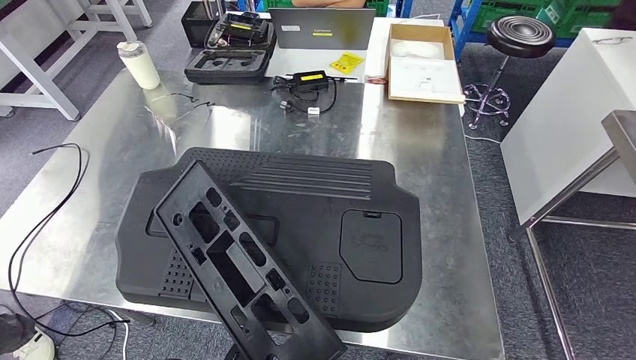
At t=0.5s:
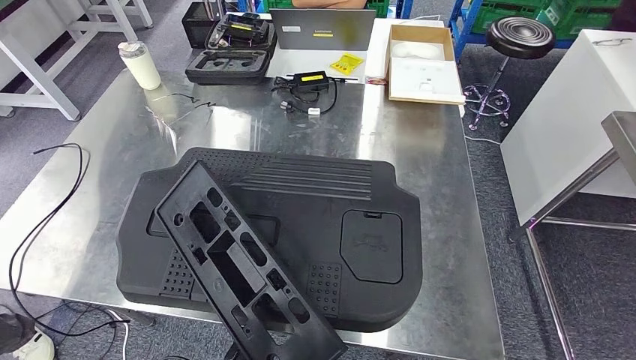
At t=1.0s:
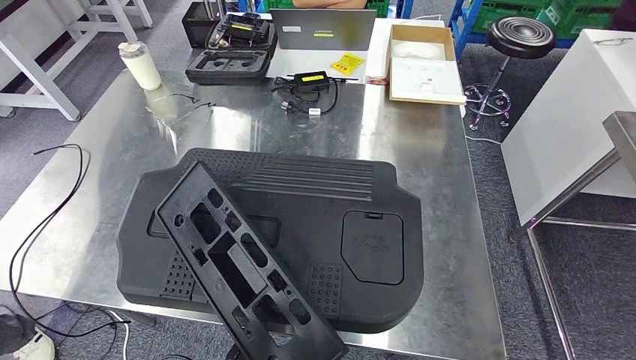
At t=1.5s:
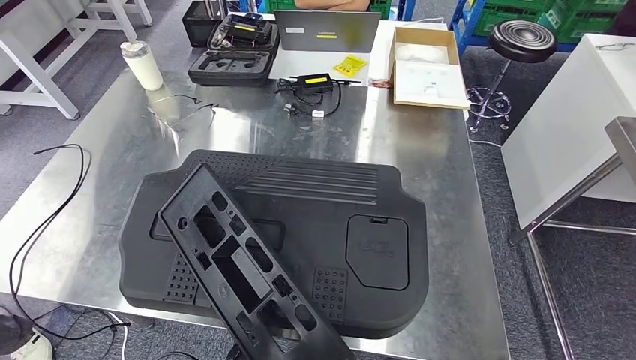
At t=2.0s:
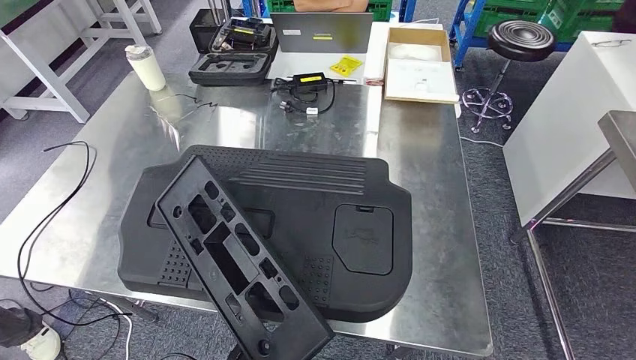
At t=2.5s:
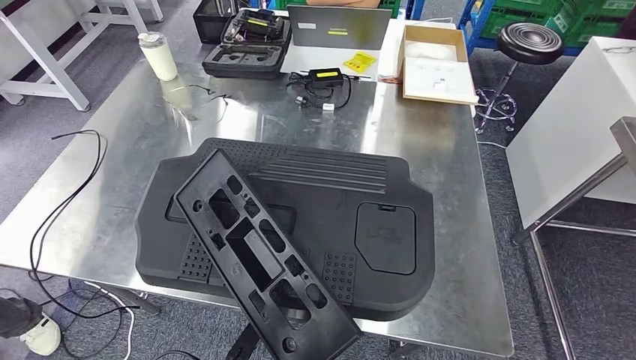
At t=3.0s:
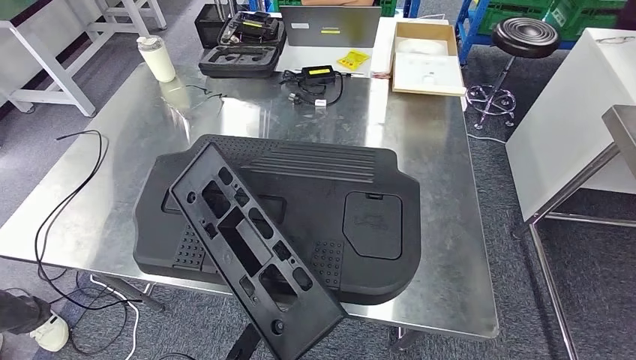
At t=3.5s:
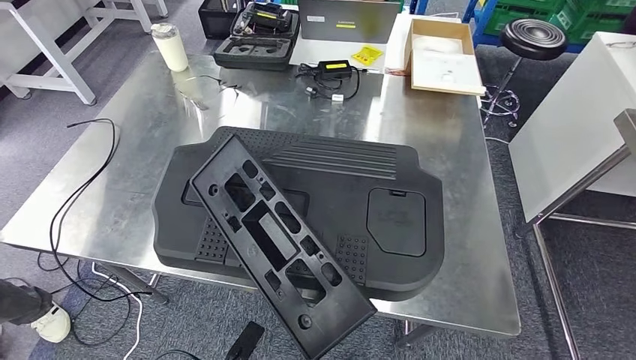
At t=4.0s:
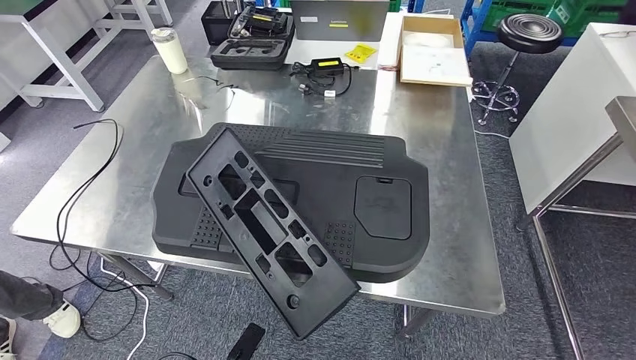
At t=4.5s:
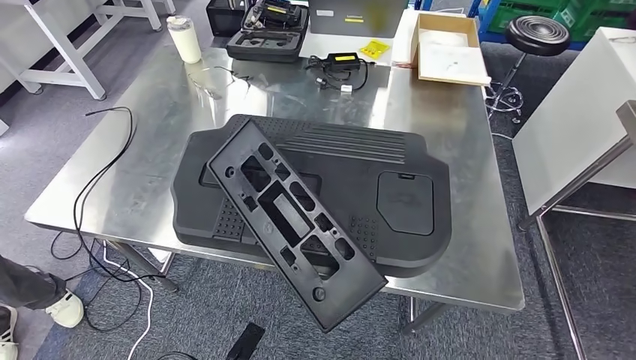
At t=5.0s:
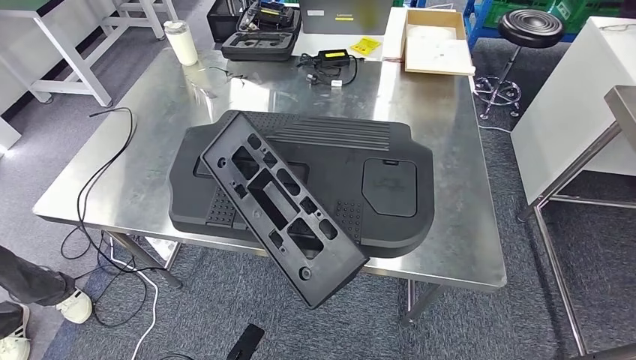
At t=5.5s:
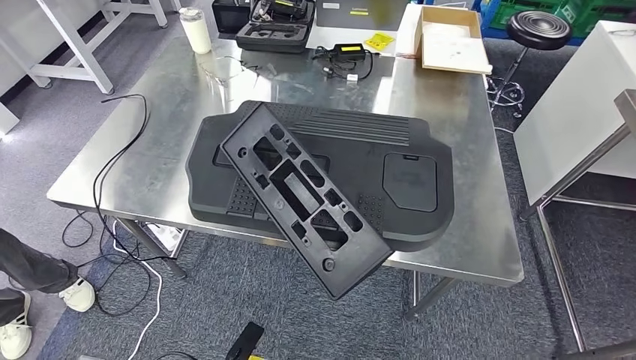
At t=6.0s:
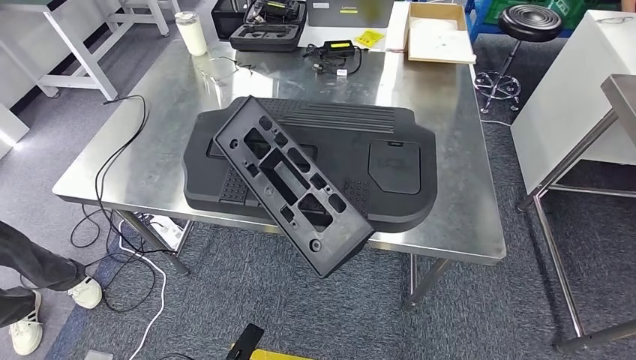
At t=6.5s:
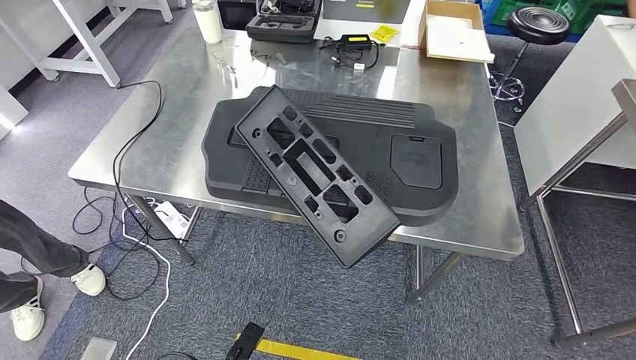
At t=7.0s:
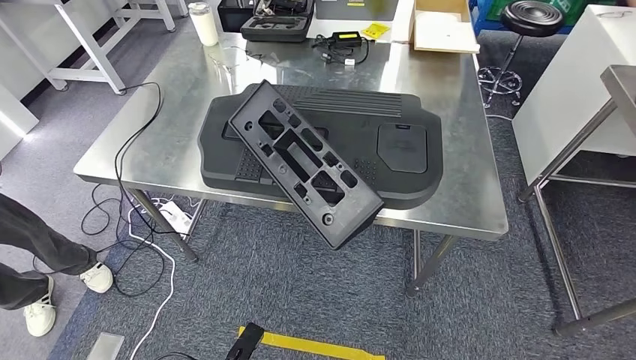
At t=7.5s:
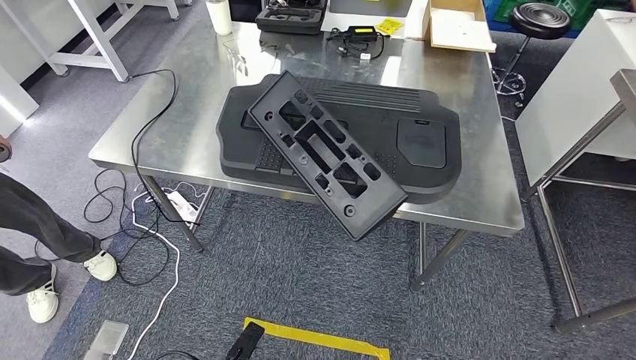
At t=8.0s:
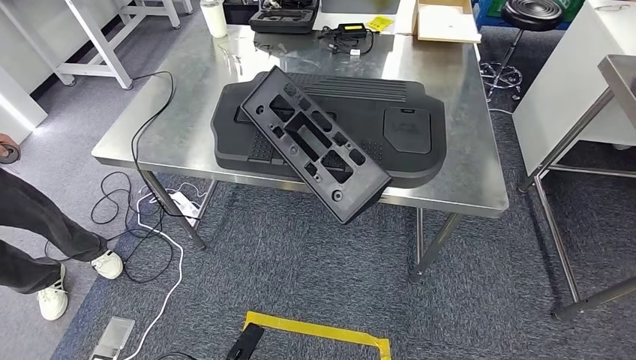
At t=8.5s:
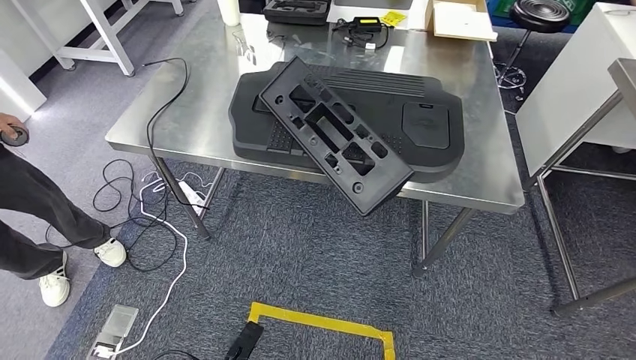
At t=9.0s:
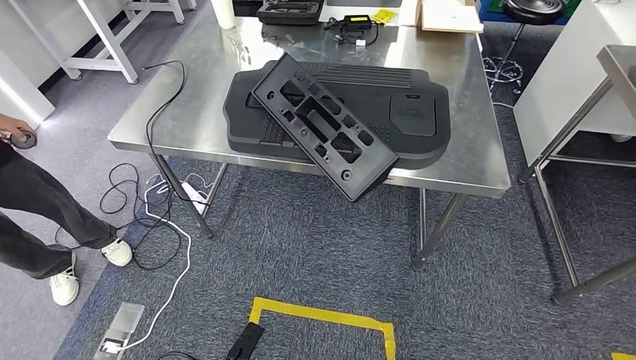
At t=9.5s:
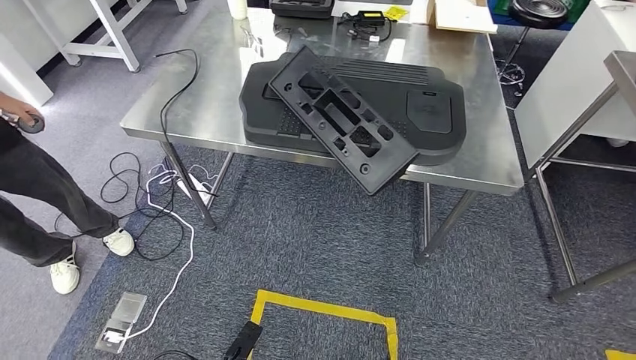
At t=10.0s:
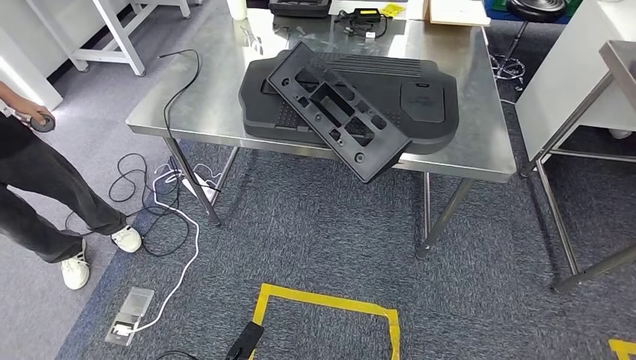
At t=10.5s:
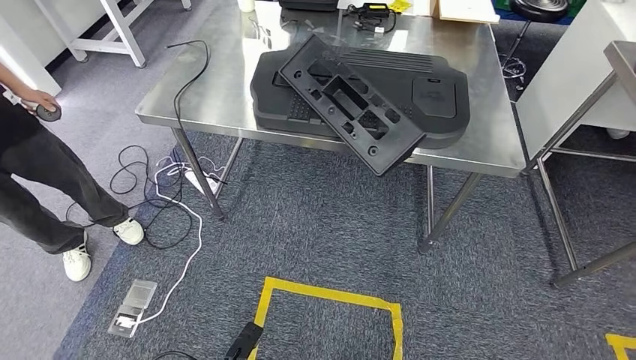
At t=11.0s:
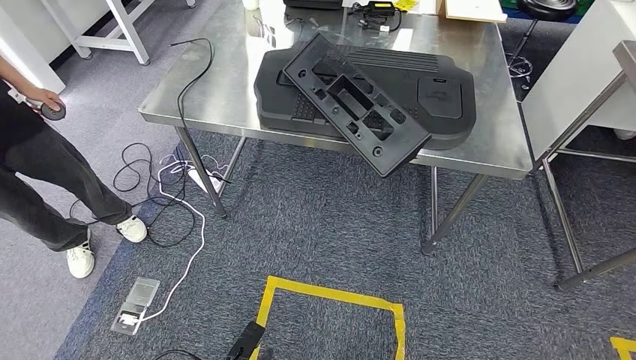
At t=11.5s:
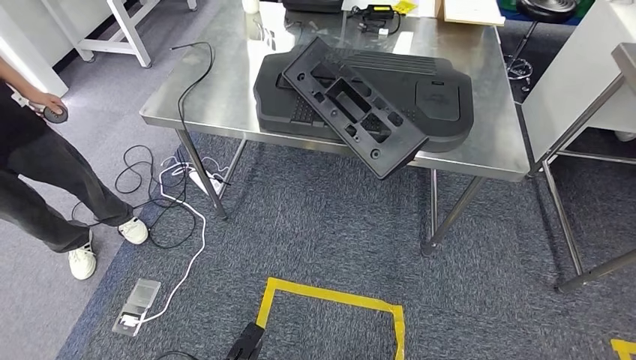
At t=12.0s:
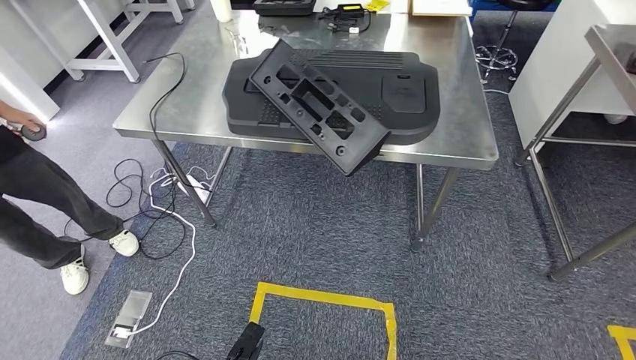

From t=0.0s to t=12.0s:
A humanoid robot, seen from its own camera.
Step, from t=0.0s to t=2.5s: Insert the large material into the corresponding hole on the workbench.

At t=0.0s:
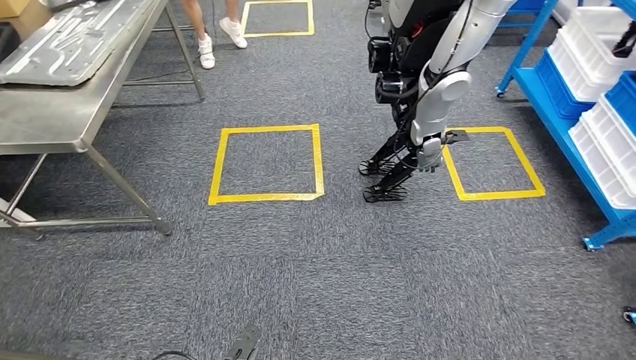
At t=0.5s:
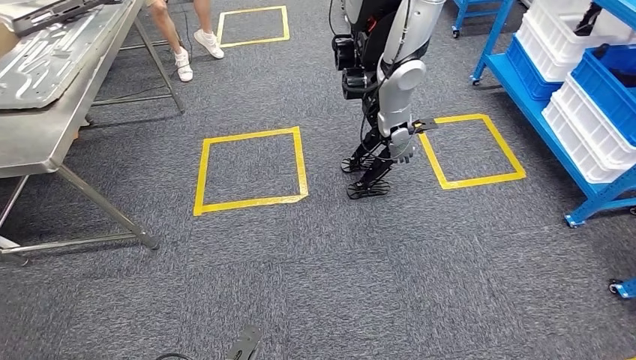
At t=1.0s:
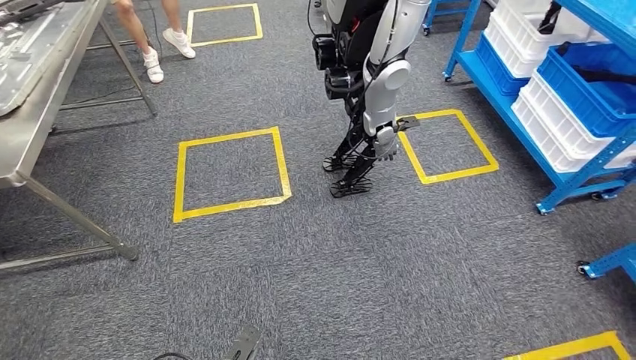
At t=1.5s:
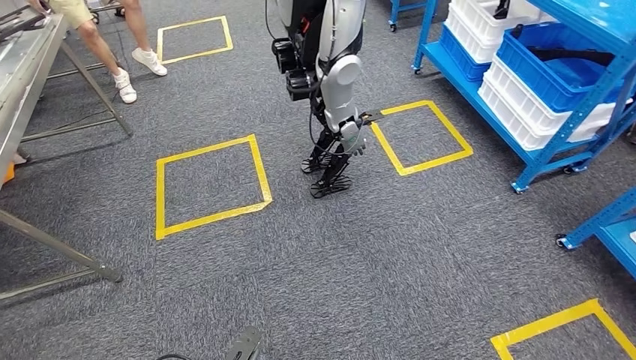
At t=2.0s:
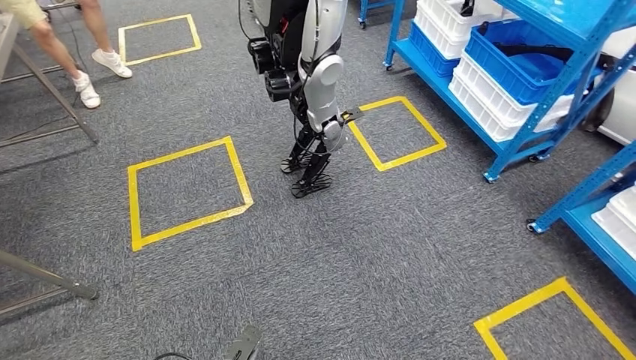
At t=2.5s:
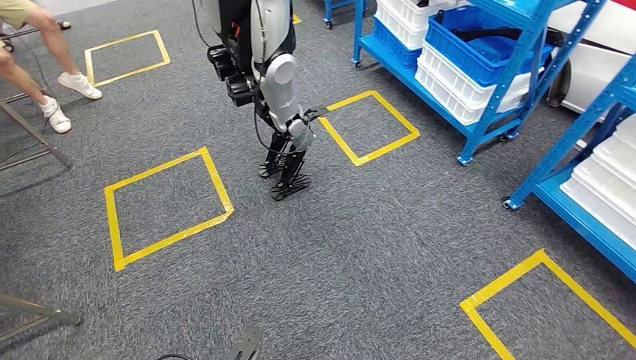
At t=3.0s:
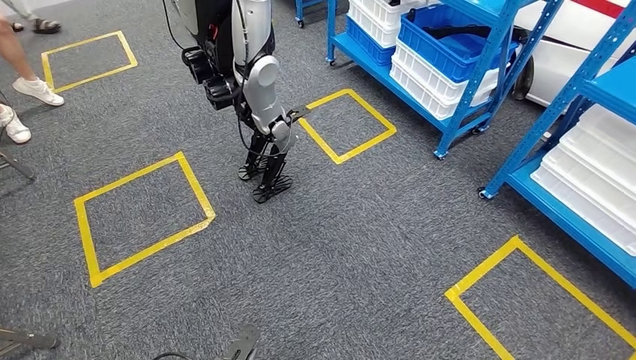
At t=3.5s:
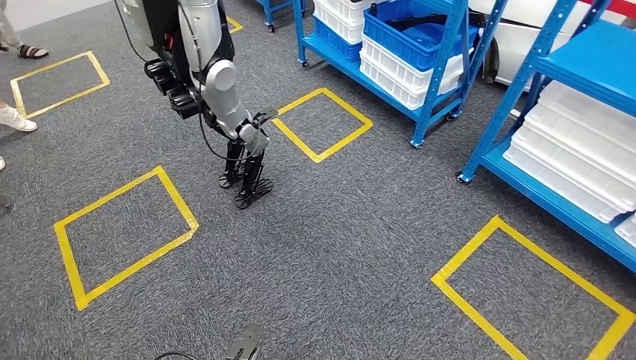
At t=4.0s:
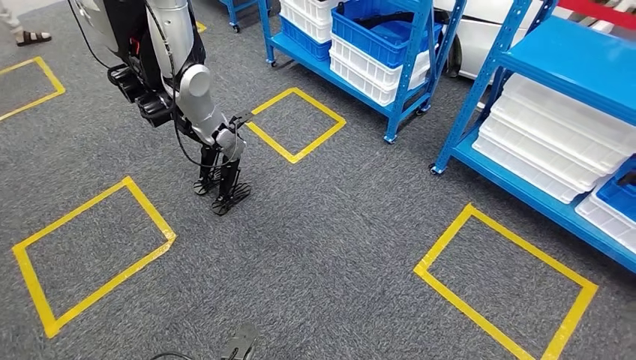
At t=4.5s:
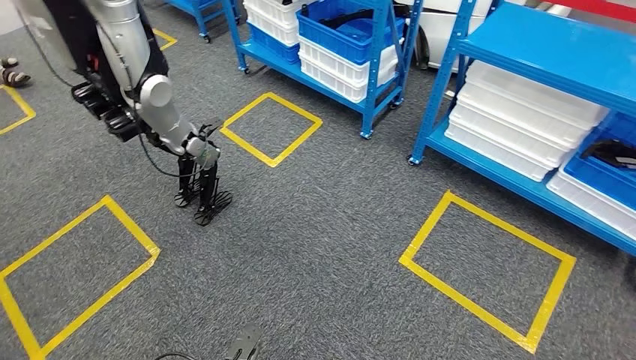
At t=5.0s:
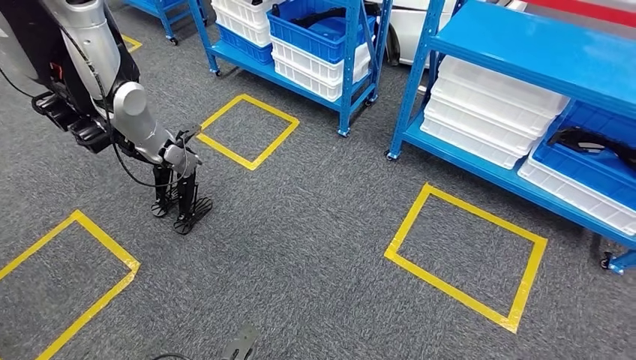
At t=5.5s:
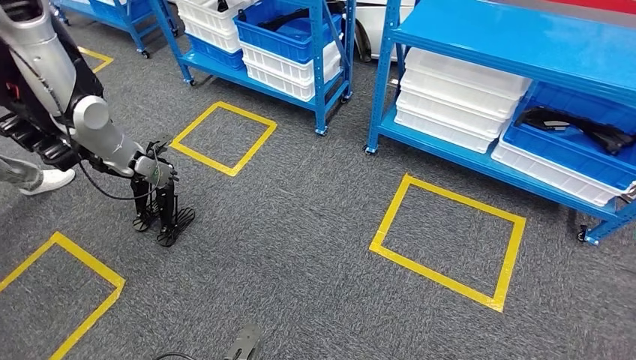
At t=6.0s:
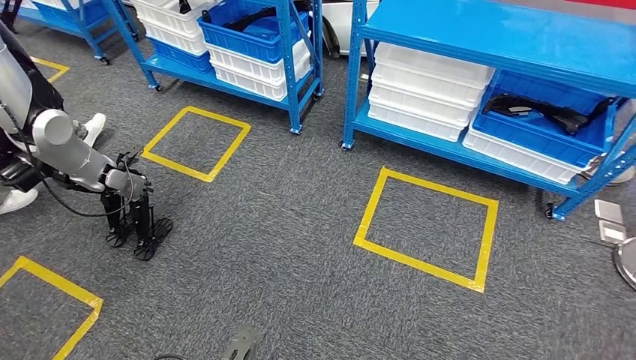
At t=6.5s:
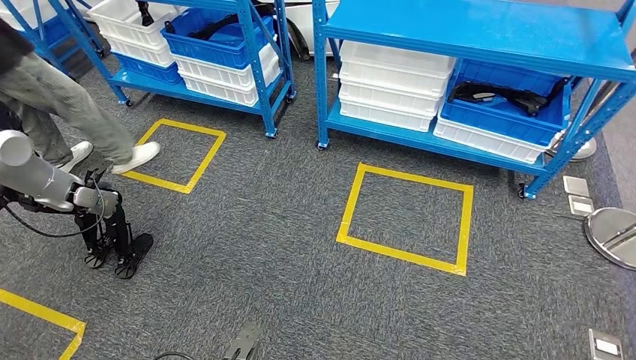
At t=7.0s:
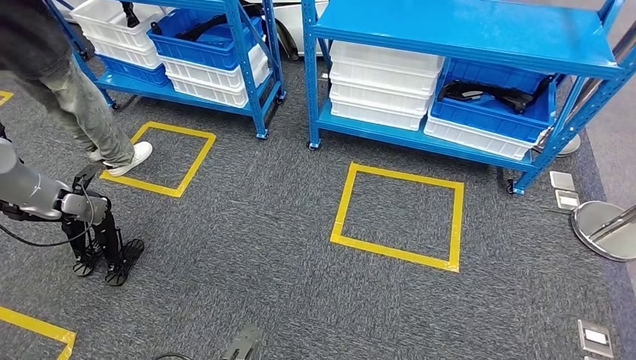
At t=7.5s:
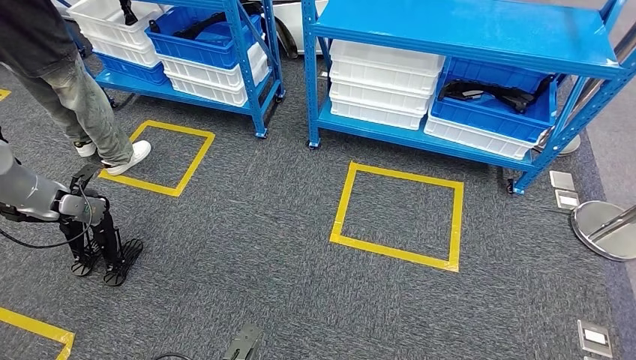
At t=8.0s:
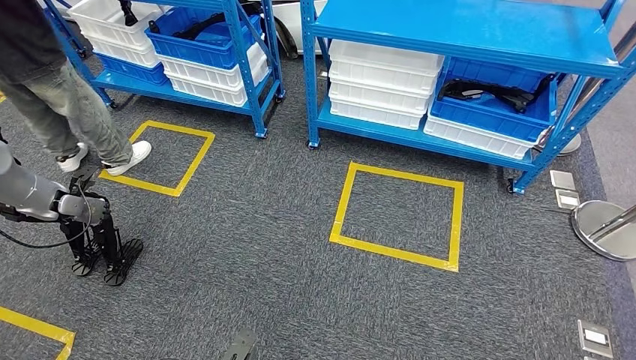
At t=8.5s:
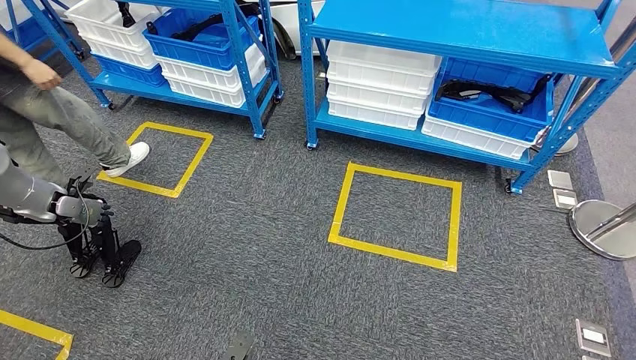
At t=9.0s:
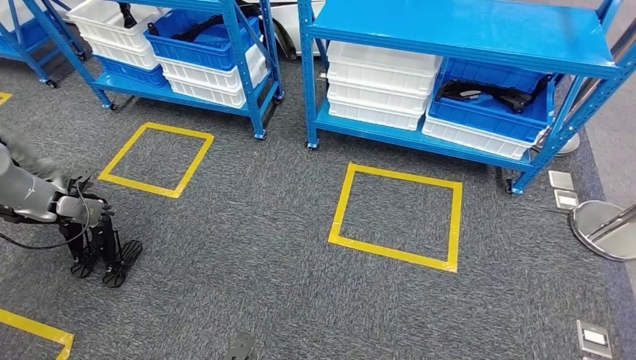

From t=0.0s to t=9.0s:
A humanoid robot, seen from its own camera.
Step, from t=0.0s to t=9.0s: Move to the initial position of the shelf.
From t=7.0s to t=9.0s: The right hand travels downward by roughly 35 cm.
